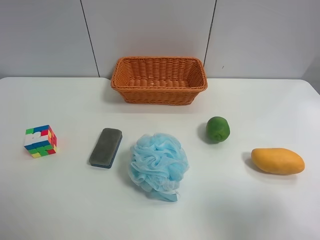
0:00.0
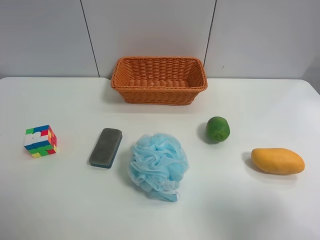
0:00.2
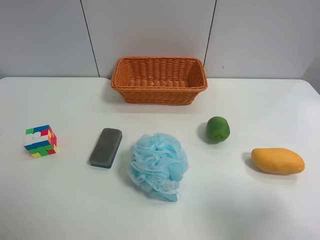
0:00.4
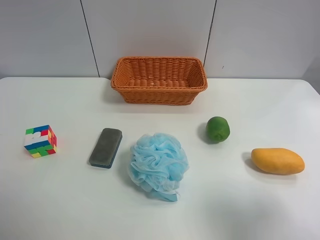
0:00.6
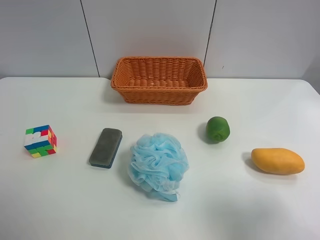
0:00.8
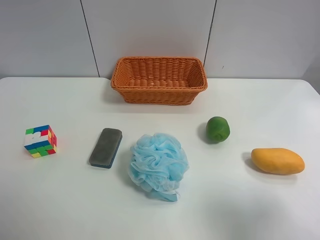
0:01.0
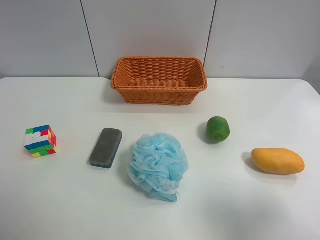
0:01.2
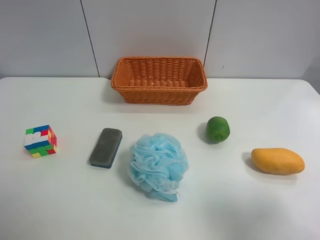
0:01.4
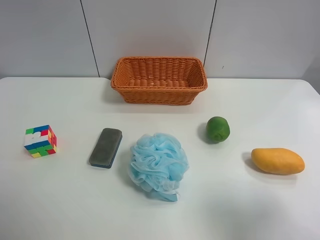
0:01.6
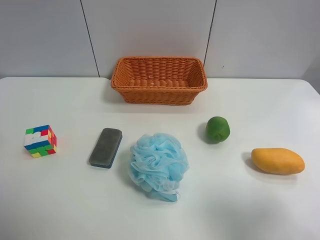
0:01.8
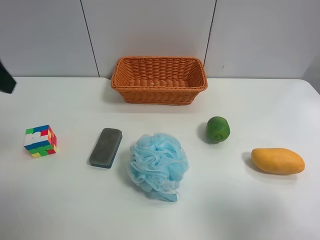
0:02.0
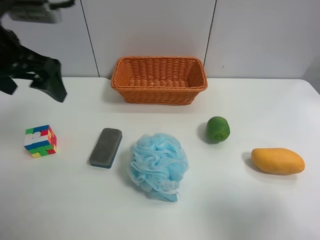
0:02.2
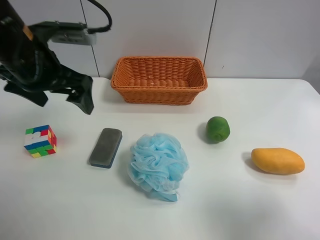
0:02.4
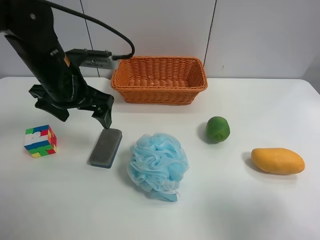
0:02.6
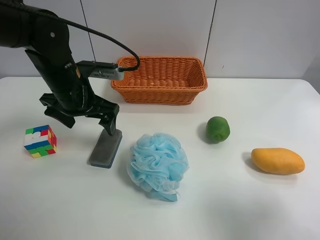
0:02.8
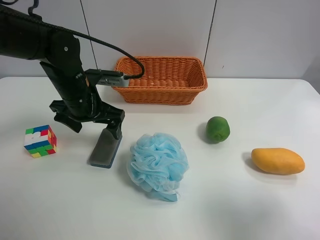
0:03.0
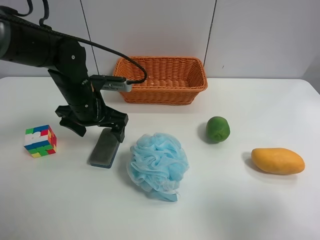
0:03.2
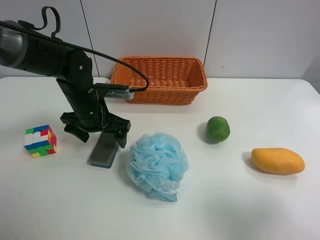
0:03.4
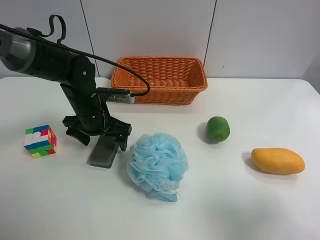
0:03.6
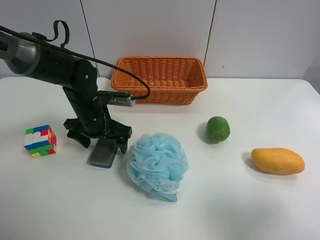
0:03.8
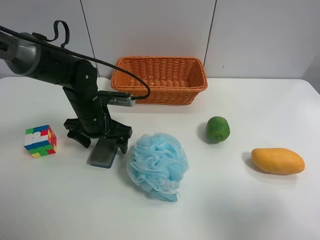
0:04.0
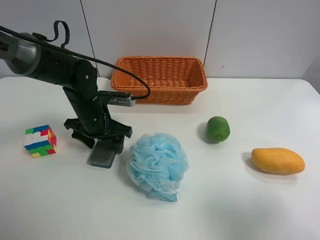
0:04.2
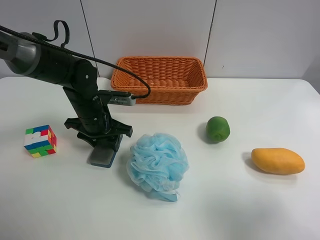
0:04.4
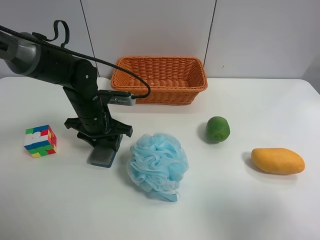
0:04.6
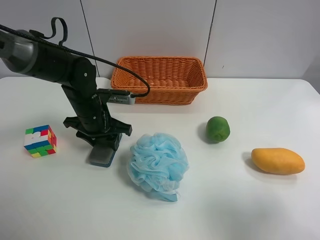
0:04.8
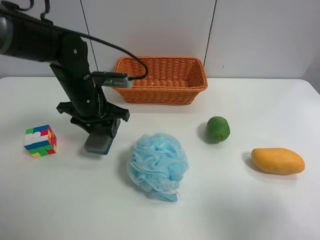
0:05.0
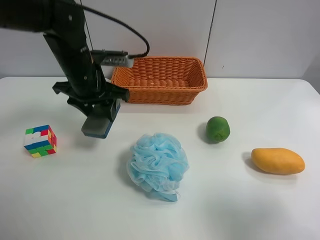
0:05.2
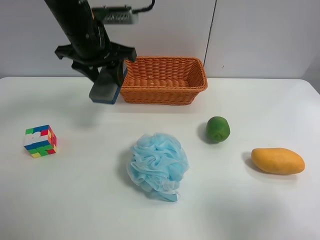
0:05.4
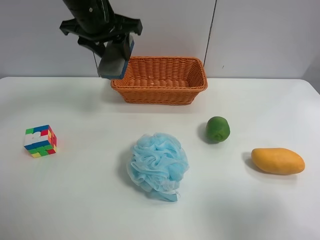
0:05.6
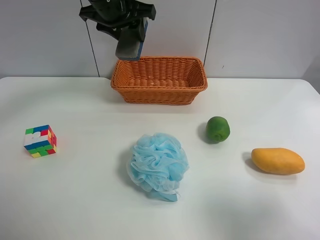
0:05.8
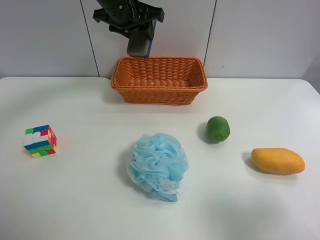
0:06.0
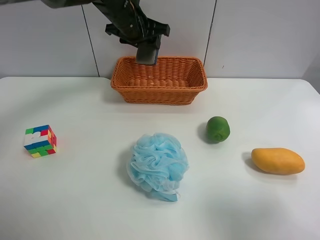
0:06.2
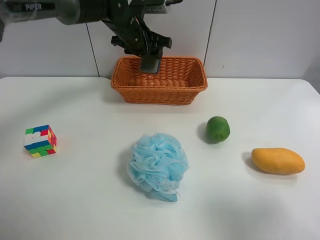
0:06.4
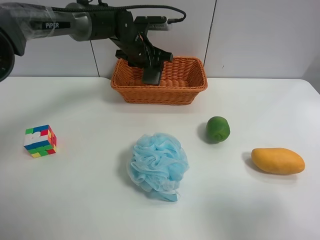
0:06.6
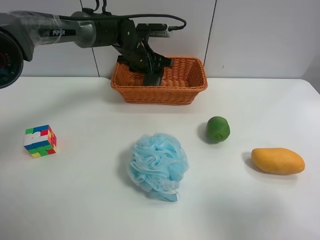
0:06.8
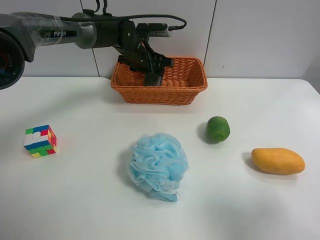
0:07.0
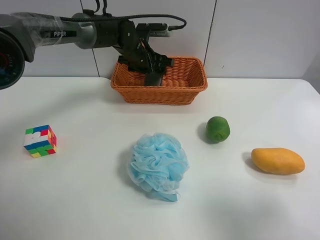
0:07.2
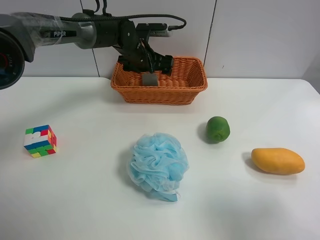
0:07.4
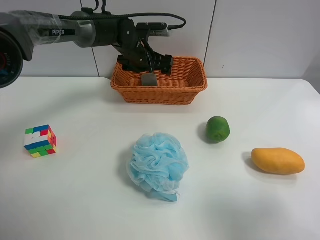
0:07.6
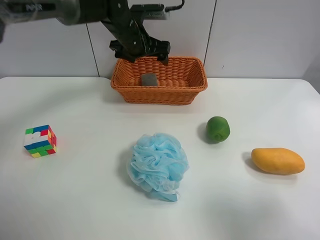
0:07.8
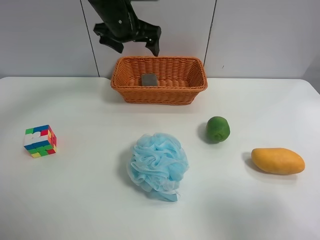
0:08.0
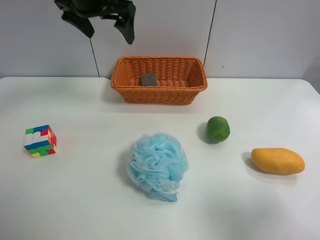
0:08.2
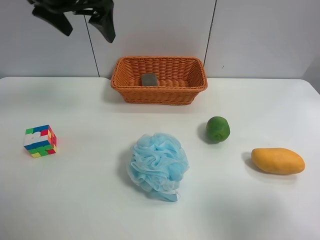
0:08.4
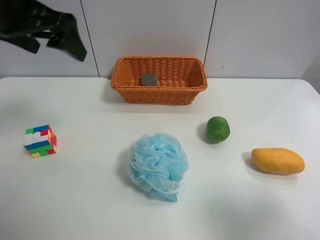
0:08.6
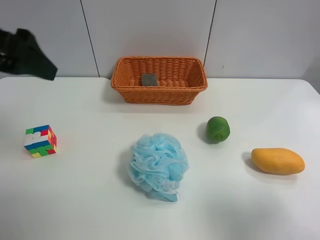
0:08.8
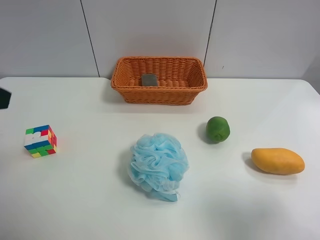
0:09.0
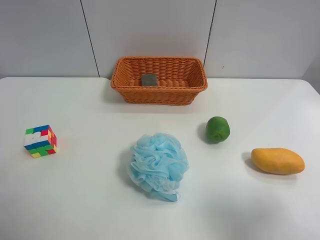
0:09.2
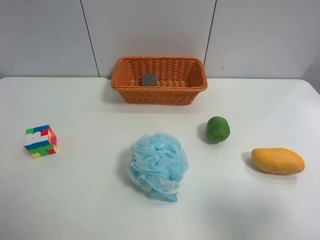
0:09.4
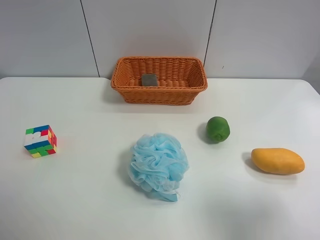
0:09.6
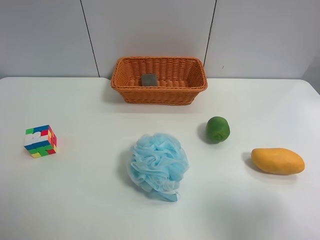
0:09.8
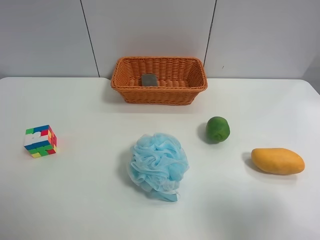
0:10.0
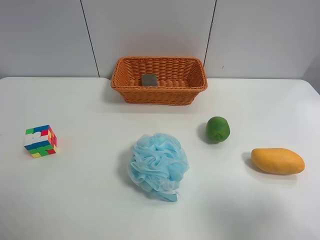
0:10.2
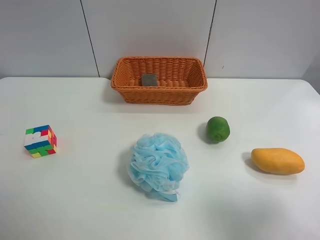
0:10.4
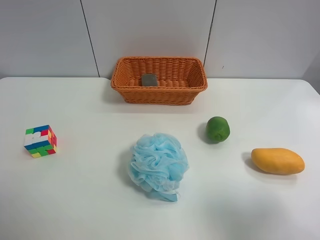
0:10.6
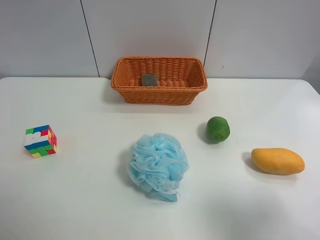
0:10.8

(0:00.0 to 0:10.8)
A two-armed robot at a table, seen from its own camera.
Task of the whole recording: use the left gripper to grab items from the table and place them in the basket.
Step, 0:00.0 - 0:04.6: Grasp the chalkboard eraser with the left gripper.
Step, 0:04.8 - 0:07.6: Place the chalkboard eraser into the basket with the left gripper.
0:01.6 - 0:03.0: The left gripper moves forward, downward and to the right, approximately 35 cm.
0:03.0 - 0:04.6: The left gripper shifts roughly 5 cm downward, and closes up.
0:04.6 - 0:06.2: The left gripper heads upward, forward and to the right, covering roughly 20 cm.
0:06.2 - 0:07.8: The left gripper opens up.
0:07.8 - 0:09.2: The left gripper moves backward and to the left, roughly 40 cm.
